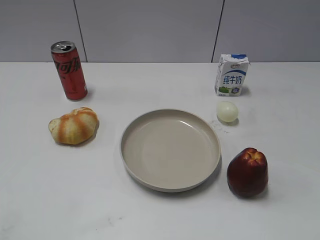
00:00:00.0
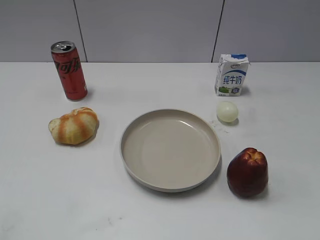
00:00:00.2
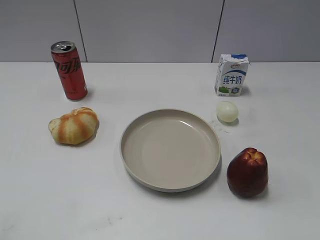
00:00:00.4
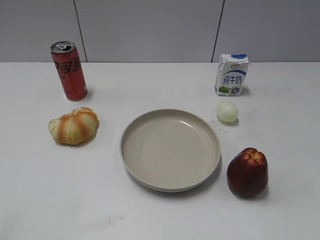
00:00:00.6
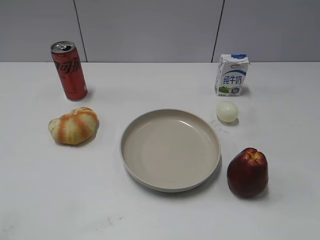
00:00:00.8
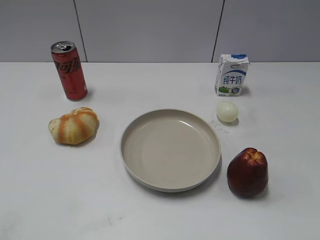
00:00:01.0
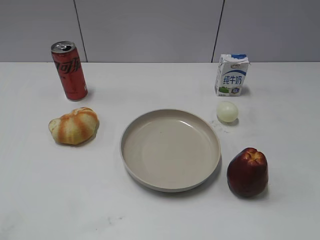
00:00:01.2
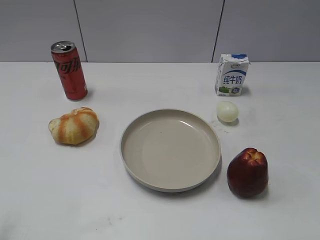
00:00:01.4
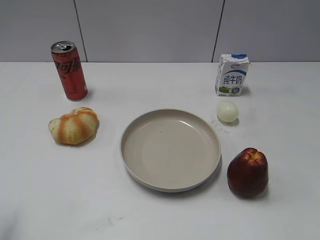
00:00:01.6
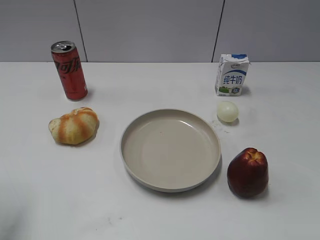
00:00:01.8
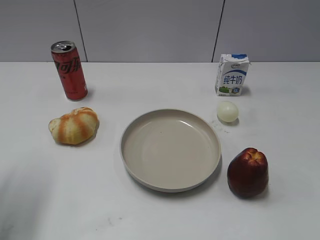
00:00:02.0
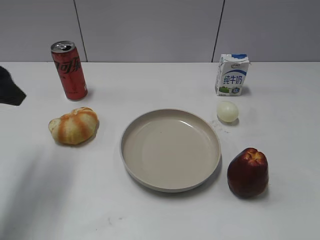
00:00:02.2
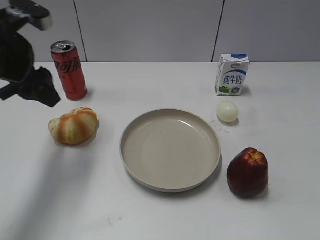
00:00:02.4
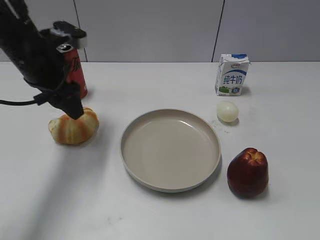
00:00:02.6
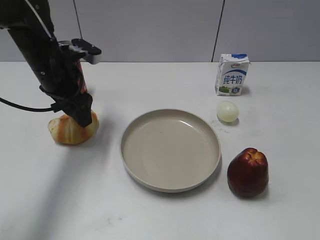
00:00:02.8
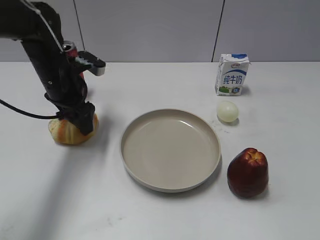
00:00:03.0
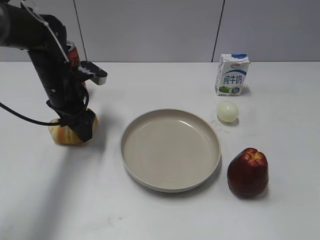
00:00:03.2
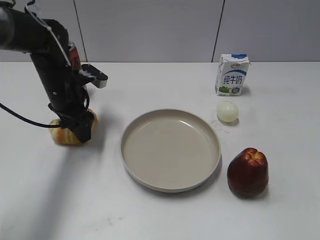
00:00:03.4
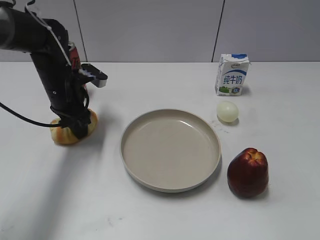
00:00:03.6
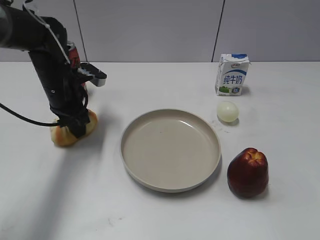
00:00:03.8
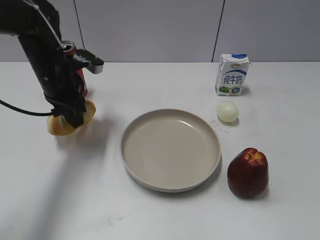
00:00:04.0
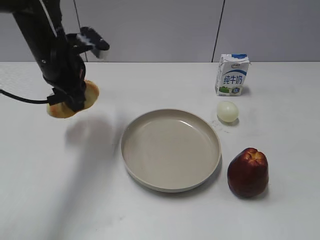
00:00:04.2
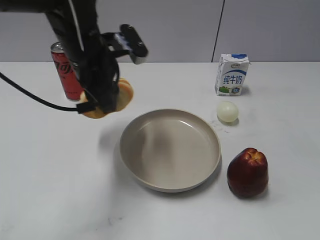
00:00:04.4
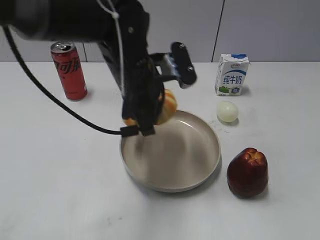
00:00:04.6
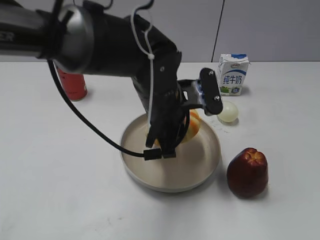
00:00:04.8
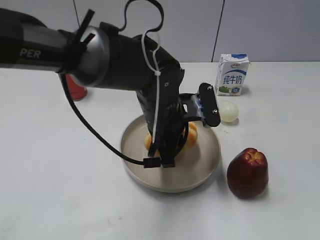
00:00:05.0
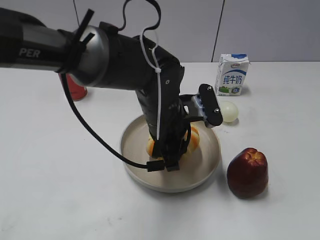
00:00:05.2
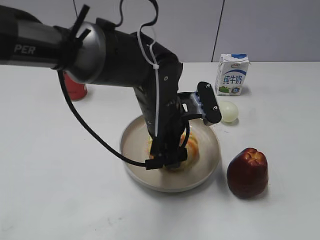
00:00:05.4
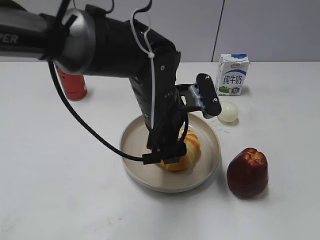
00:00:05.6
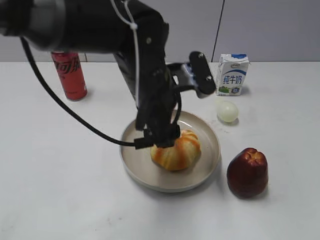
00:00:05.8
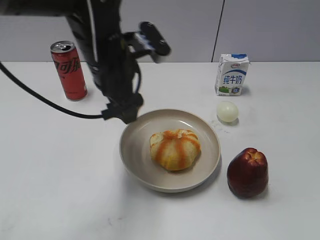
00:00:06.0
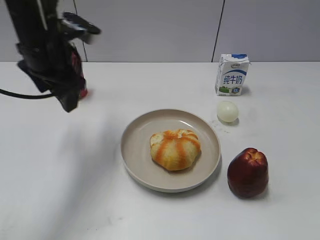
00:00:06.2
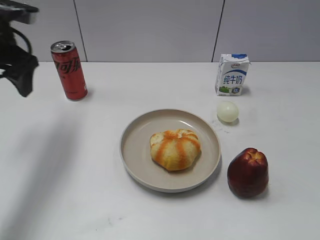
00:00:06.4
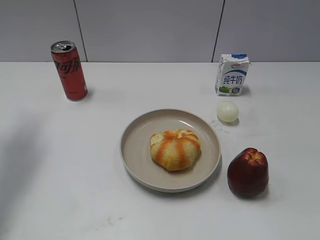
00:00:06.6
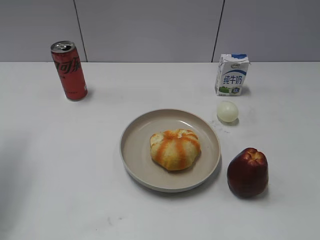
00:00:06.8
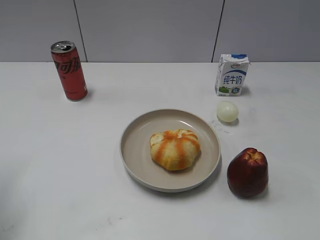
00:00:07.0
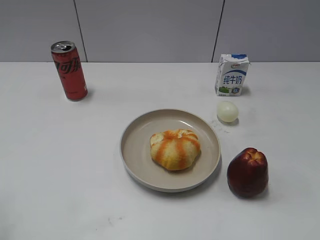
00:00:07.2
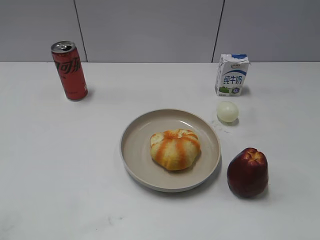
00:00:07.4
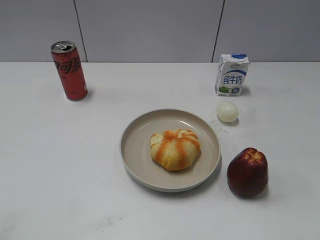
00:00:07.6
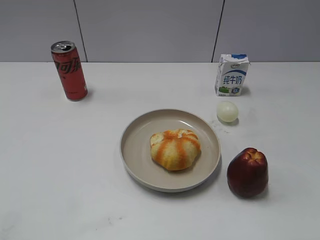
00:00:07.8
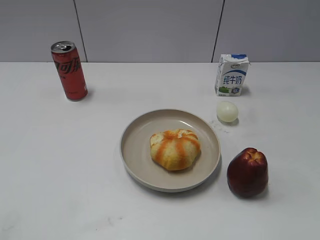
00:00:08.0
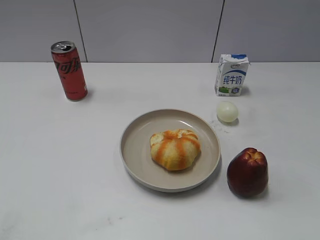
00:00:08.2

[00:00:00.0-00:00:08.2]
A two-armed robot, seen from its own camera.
Step, 00:00:01.0 to 00:00:03.6: Grasp the round bread with left gripper.
Step, 00:00:03.8 to 00:00:05.8: Place the round bread on the plate with left gripper.
00:00:01.6 to 00:00:03.2: The left gripper moves forward, downward and to the right, about 35 cm.
00:00:03.2 to 00:00:05.0: The left gripper goes roughly 20 cm to the right and backward, and closes.
00:00:05.0 to 00:00:06.6: The left gripper goes approximately 35 cm to the left and upward, and opens.
00:00:06.6 to 00:00:08.2: The left gripper travels backward by approximately 35 cm.

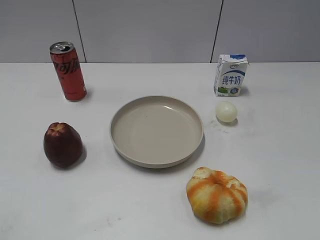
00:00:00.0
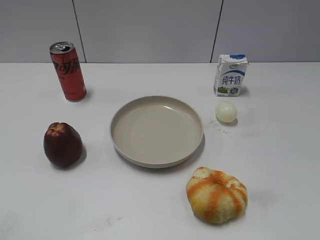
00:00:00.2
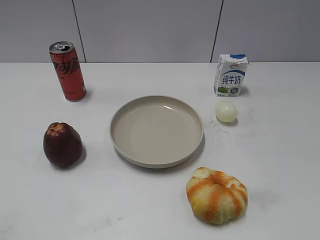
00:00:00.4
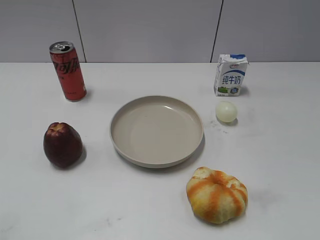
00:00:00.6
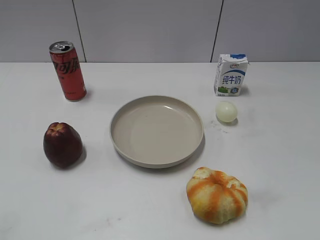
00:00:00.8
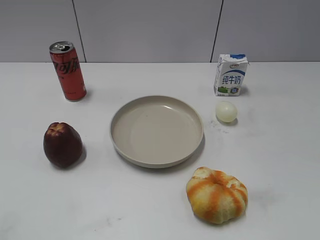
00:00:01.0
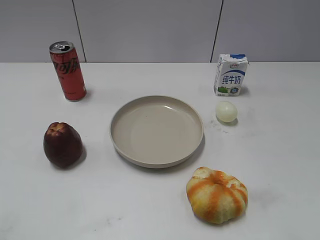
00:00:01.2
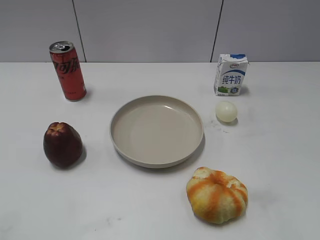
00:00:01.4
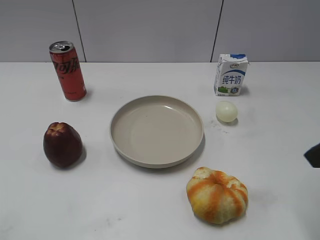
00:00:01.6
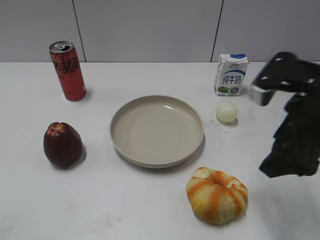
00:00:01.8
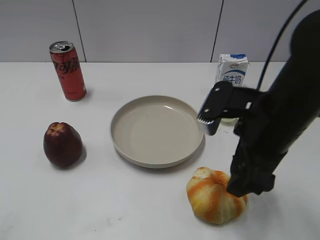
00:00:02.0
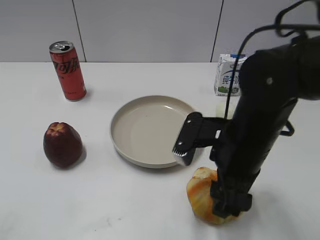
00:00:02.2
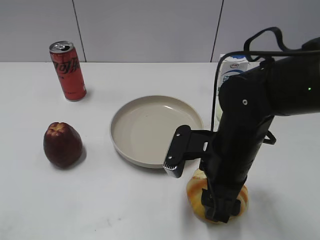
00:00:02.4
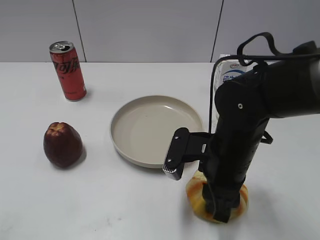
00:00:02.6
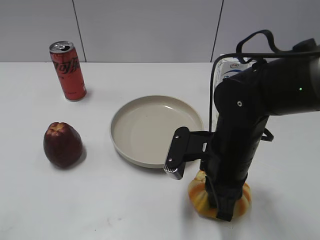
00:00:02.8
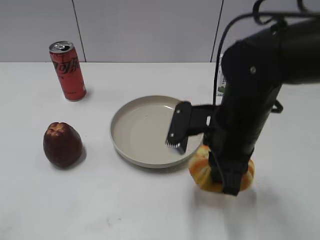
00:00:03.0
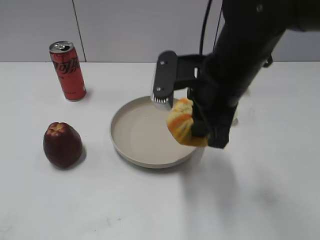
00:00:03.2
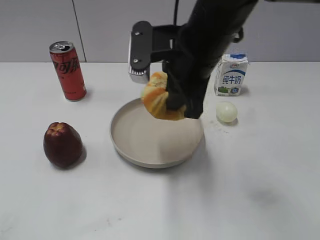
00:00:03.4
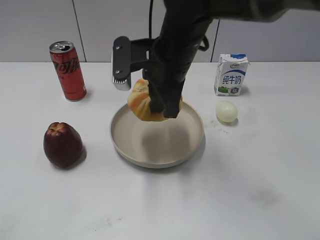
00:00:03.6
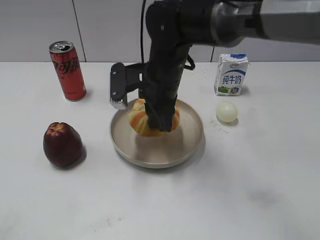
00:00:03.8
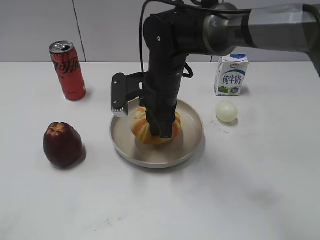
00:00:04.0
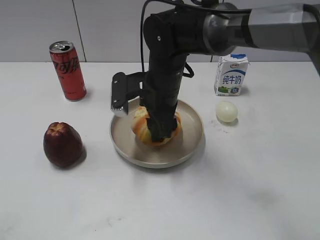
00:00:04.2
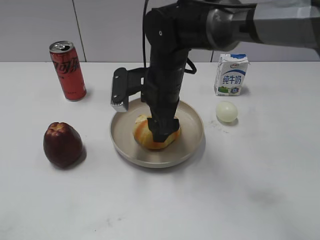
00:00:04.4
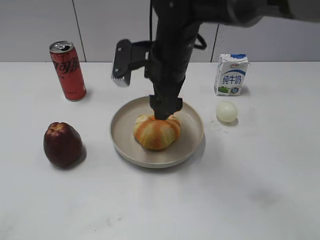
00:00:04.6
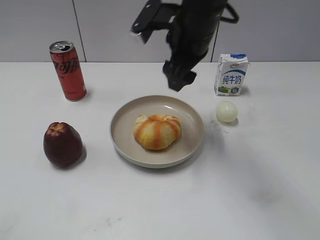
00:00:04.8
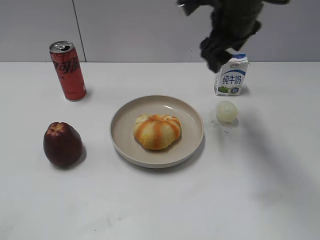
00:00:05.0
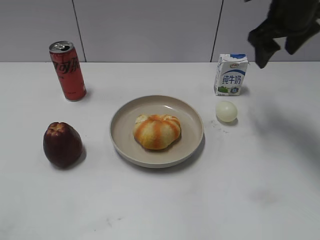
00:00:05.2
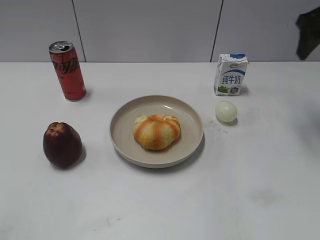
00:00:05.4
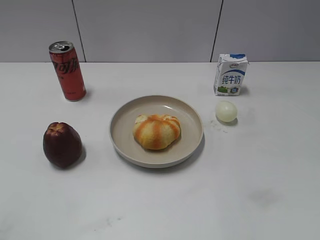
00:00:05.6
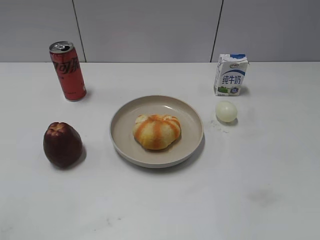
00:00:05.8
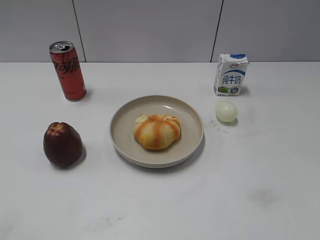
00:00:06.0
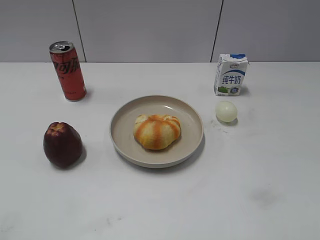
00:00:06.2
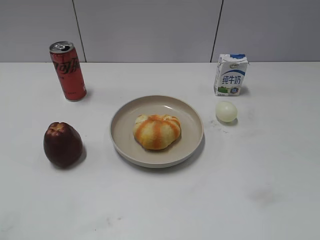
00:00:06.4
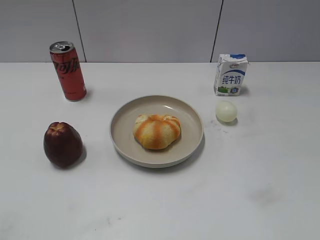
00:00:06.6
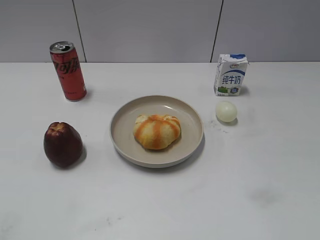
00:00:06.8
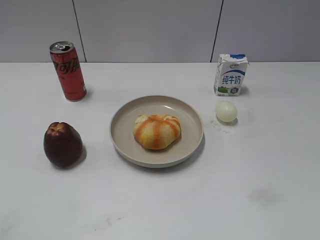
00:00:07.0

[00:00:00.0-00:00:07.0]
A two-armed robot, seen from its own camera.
Step, 00:00:01.0 to 00:00:02.6: Grasp the round bread with right gripper.
Step, 00:00:02.8 to 00:00:04.6: Place the round bread on the plate with right gripper.
00:00:01.4 to 00:00:02.8: The right gripper travels to the left, downward and forward by approximately 25 cm, and closes up.
00:00:02.8 to 00:00:04.2: The right gripper moves forward and to the left, roughly 15 cm, goes upward and returns, some 15 cm each way, and opens.
00:00:04.2 to 00:00:05.6: The right gripper shifts about 35 cm to the right and upward.
